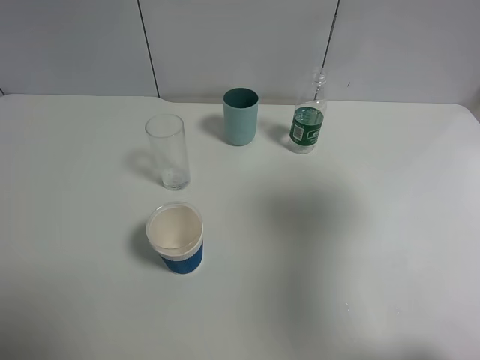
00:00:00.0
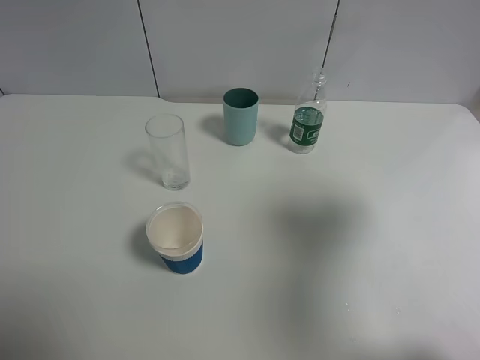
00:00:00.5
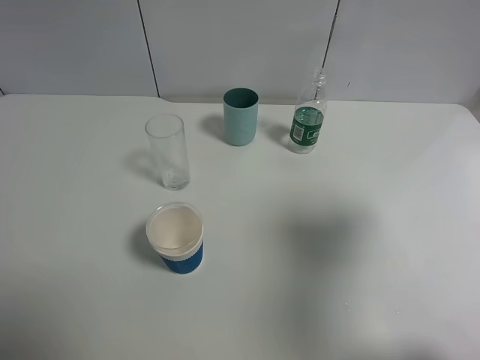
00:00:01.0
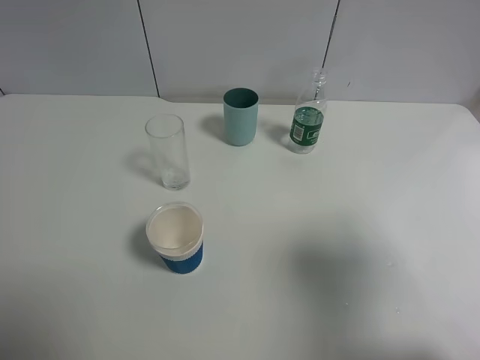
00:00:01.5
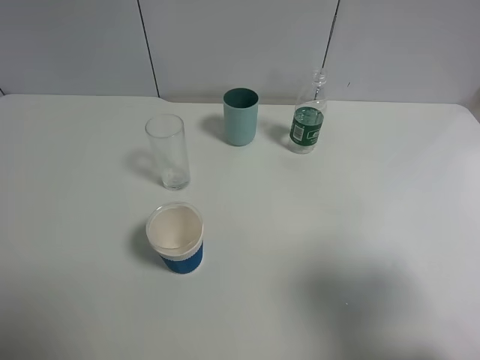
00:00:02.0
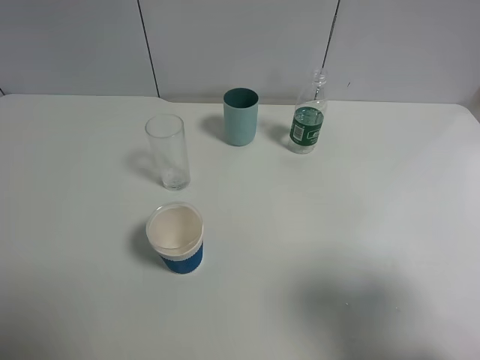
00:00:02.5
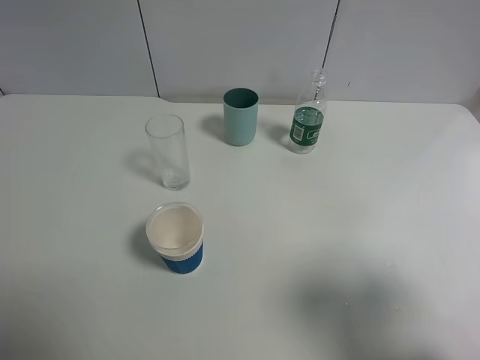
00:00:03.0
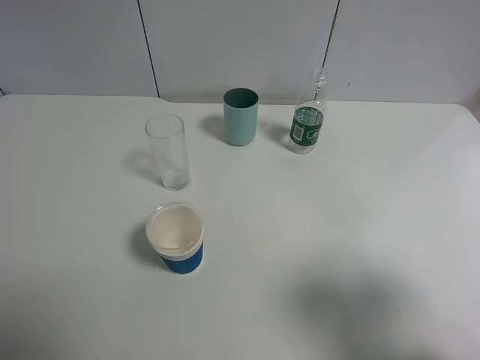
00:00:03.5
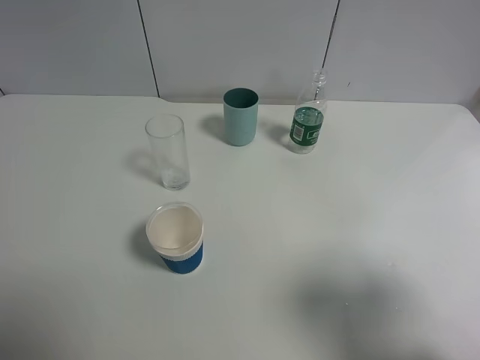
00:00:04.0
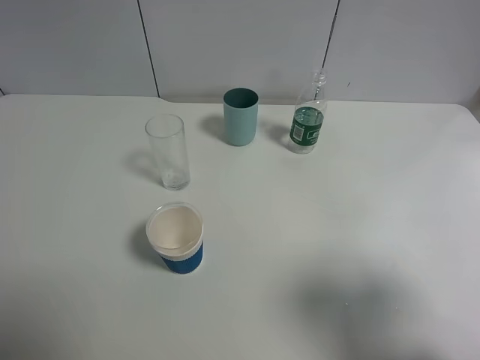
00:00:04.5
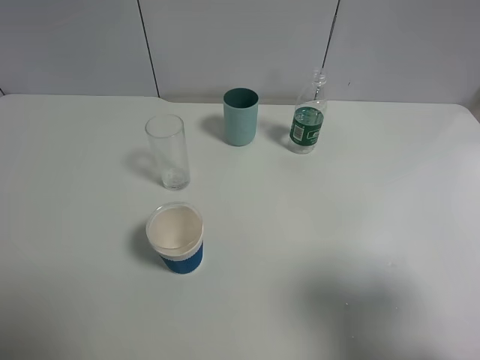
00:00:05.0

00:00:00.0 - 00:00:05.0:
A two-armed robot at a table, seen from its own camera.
Task of the whole recording: use a gripper to hold the bottle of the drink and pour it into a random cup.
00:00:00.0 - 00:00:02.5: The right gripper goes about 15 cm backward and downward.
